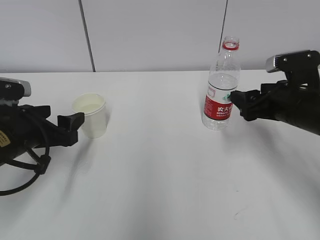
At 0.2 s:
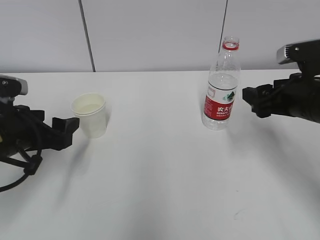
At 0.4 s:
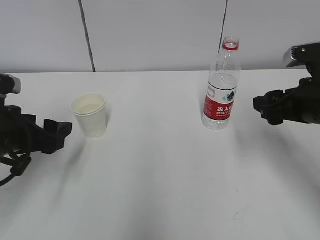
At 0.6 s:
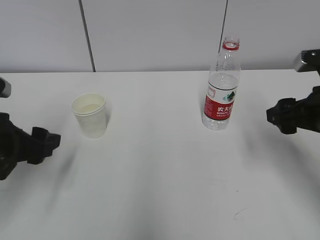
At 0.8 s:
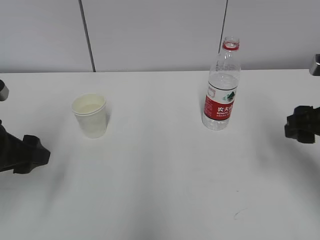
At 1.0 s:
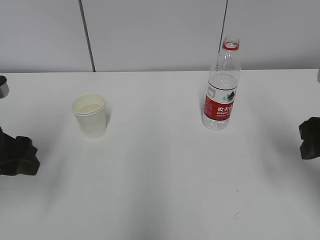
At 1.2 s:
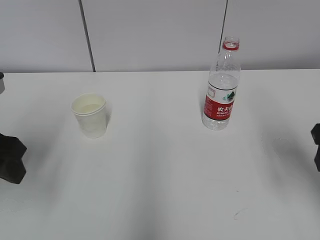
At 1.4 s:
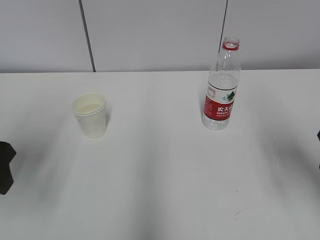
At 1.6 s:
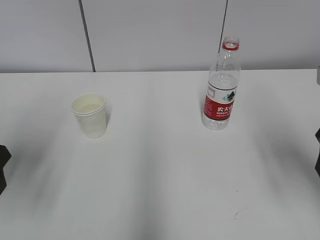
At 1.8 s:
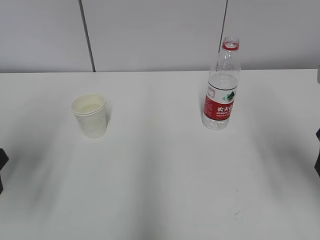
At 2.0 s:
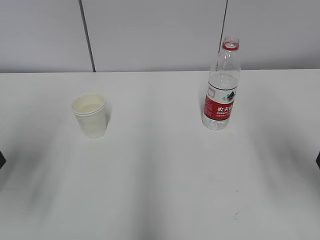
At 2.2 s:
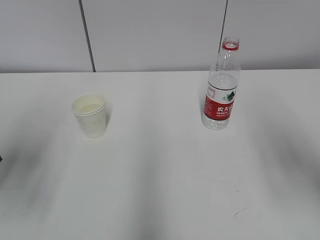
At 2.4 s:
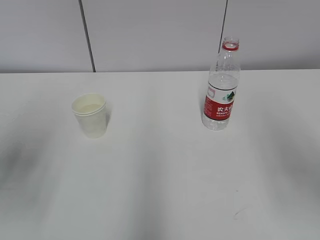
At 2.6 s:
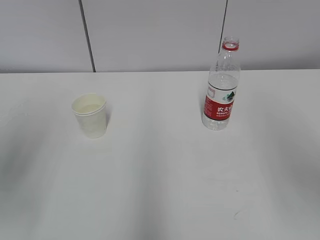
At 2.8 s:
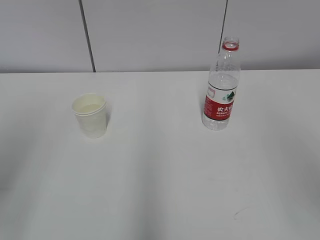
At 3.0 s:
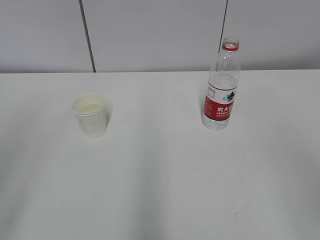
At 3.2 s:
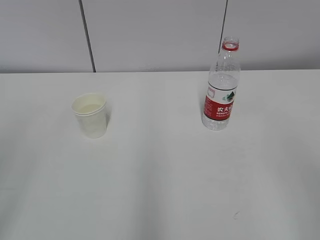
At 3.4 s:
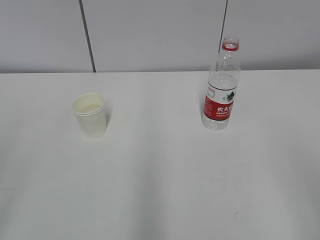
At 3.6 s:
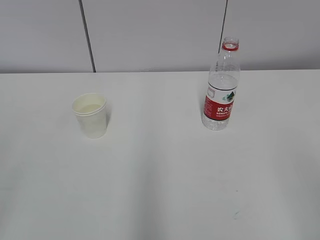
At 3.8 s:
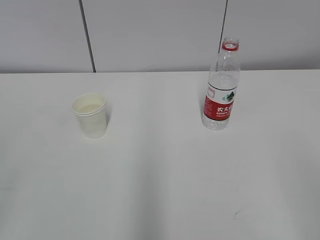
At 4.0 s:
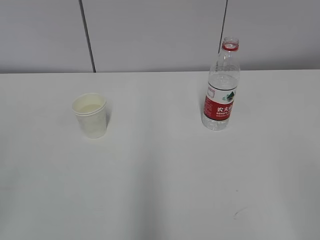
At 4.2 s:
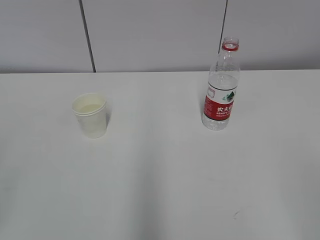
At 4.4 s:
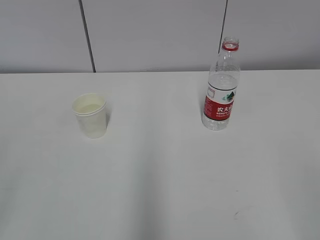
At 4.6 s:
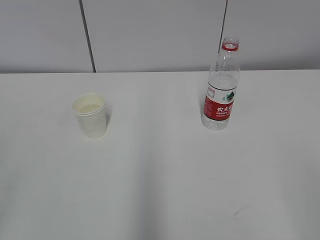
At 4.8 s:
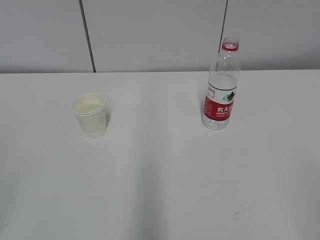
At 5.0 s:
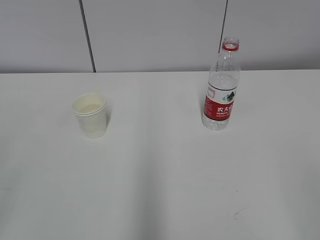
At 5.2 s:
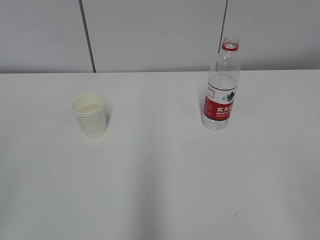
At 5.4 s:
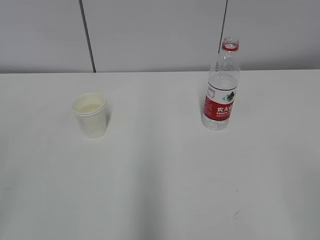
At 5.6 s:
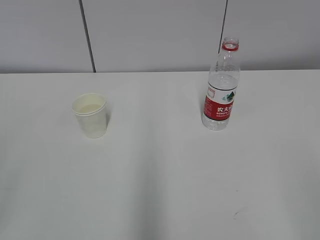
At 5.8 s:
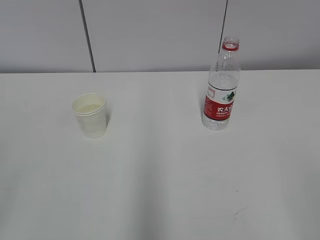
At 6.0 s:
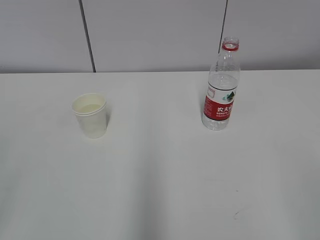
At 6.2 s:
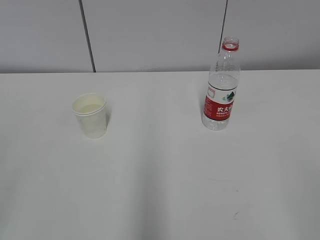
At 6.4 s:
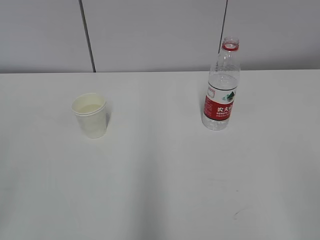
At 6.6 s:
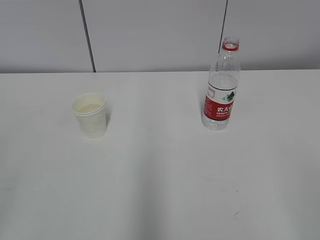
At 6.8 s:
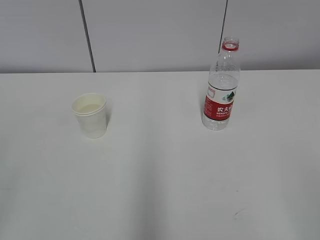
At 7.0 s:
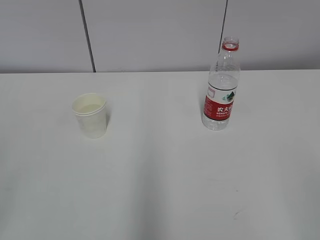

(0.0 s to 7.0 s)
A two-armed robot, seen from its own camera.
0.0 s - 1.4 s: The right gripper heads backward and upward, covering approximately 15 cm; the left gripper shifts about 10 cm upward and backward.
1.4 s - 2.8 s: The two grippers go approximately 15 cm backward and upward.
4.2 s - 7.0 s: Both grippers stay about where they are.
